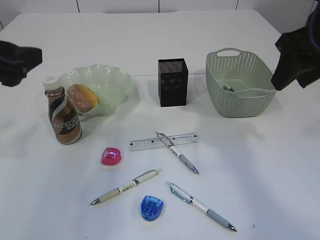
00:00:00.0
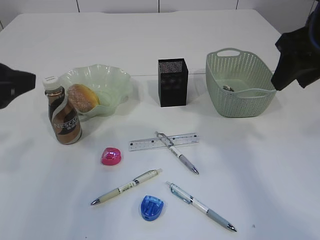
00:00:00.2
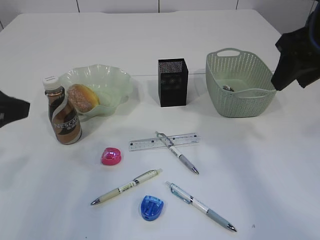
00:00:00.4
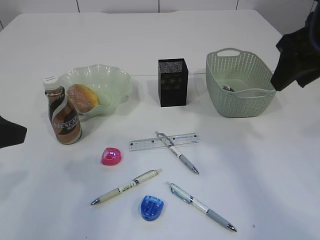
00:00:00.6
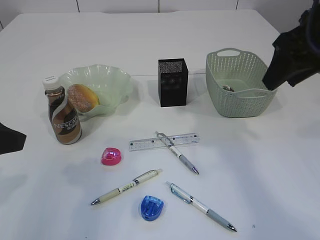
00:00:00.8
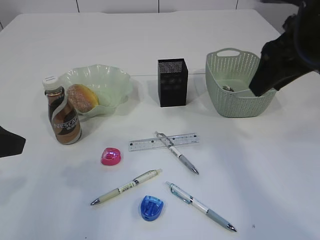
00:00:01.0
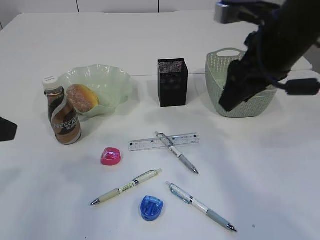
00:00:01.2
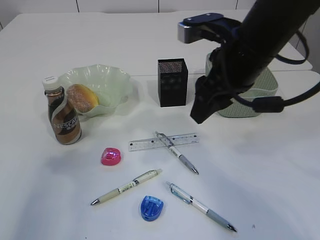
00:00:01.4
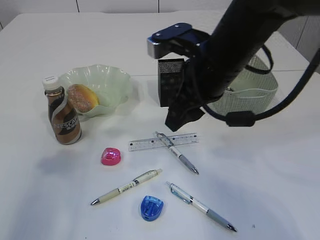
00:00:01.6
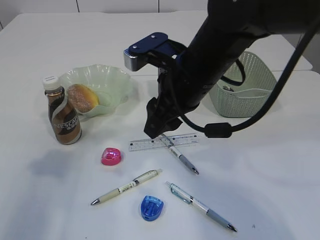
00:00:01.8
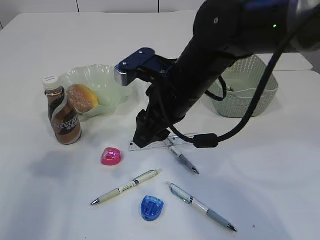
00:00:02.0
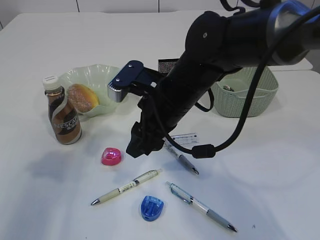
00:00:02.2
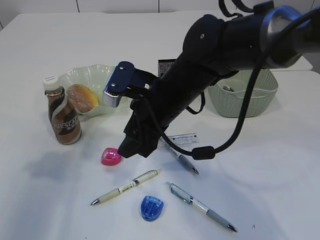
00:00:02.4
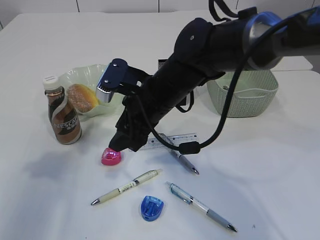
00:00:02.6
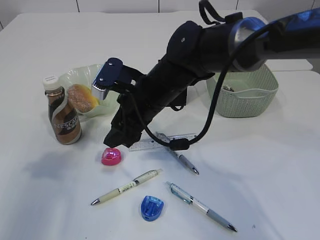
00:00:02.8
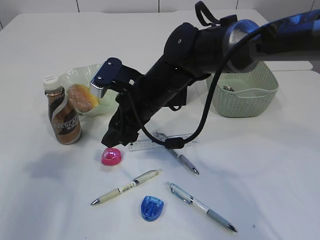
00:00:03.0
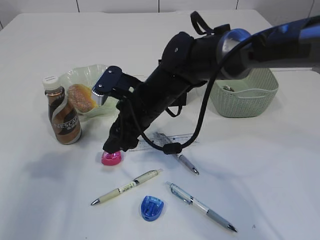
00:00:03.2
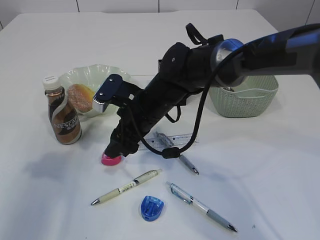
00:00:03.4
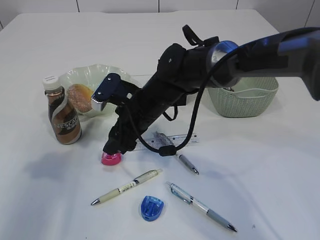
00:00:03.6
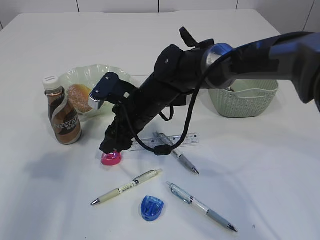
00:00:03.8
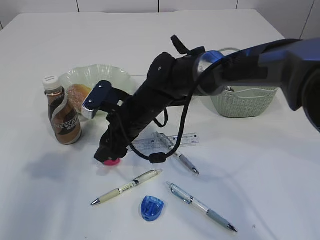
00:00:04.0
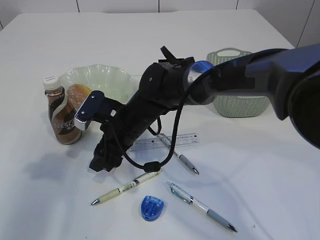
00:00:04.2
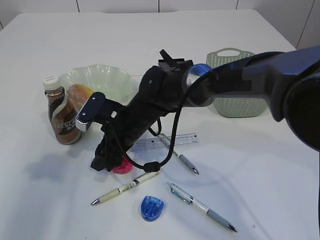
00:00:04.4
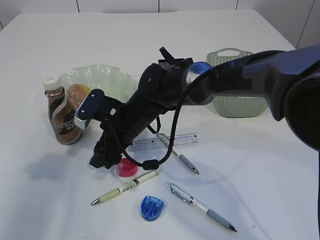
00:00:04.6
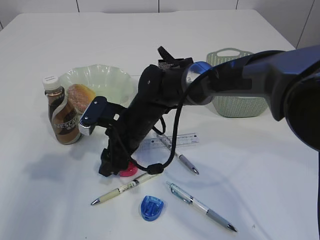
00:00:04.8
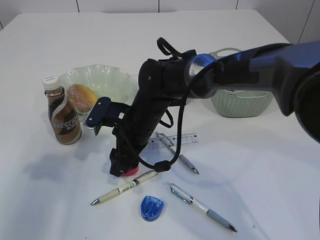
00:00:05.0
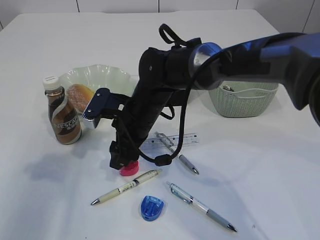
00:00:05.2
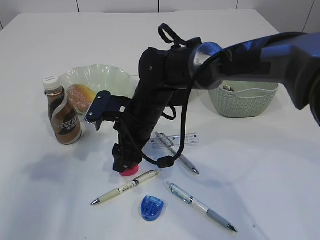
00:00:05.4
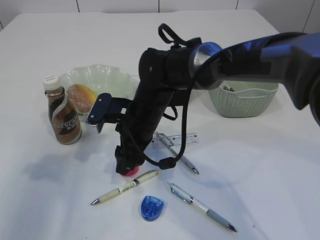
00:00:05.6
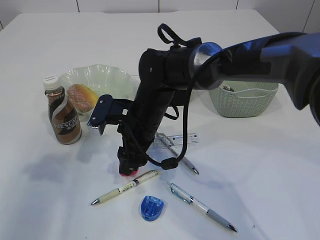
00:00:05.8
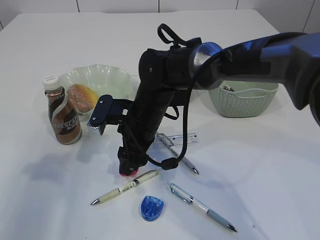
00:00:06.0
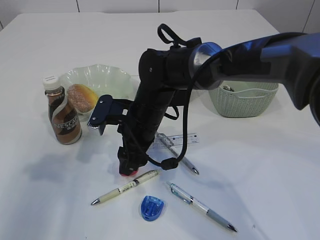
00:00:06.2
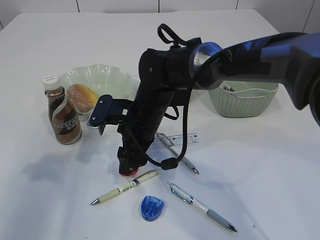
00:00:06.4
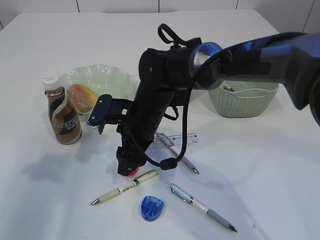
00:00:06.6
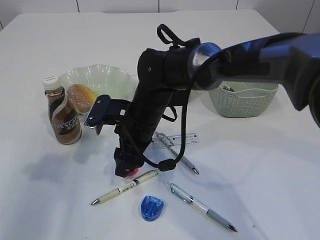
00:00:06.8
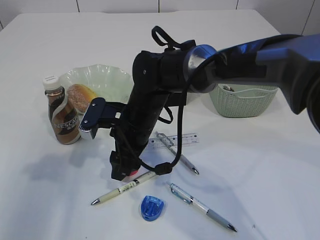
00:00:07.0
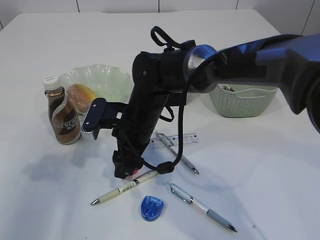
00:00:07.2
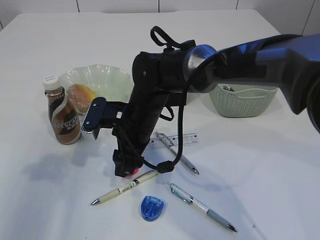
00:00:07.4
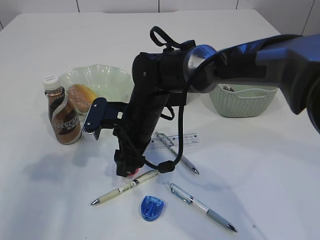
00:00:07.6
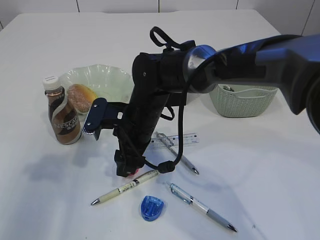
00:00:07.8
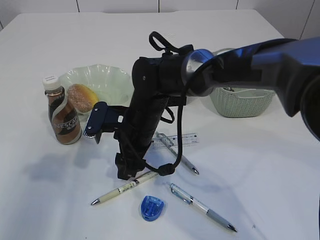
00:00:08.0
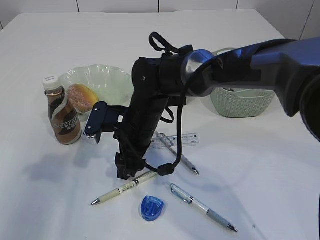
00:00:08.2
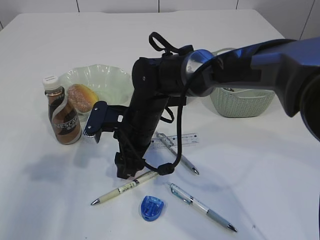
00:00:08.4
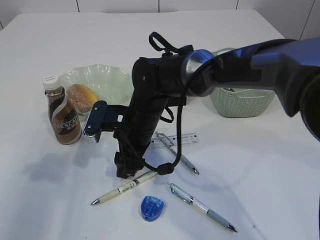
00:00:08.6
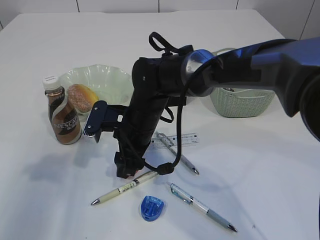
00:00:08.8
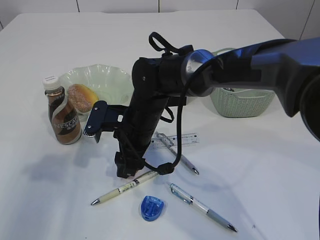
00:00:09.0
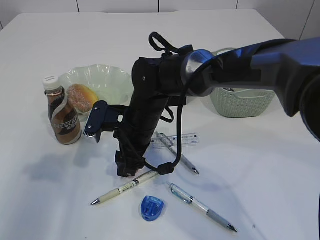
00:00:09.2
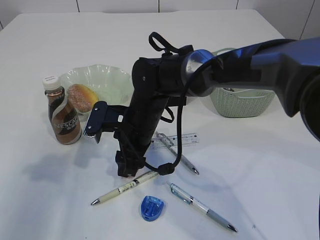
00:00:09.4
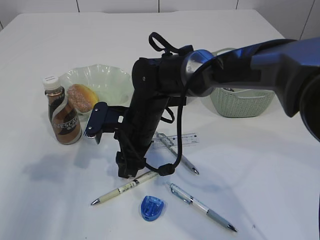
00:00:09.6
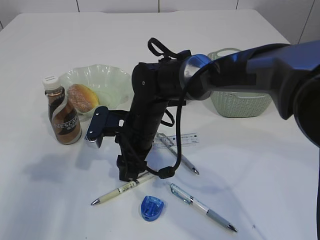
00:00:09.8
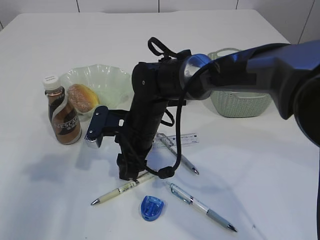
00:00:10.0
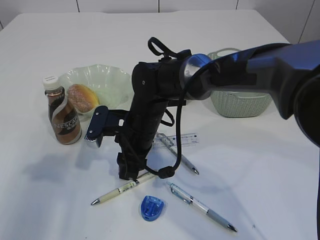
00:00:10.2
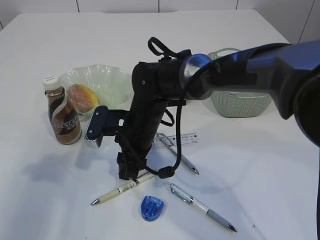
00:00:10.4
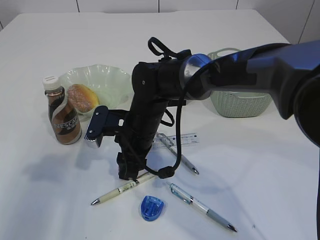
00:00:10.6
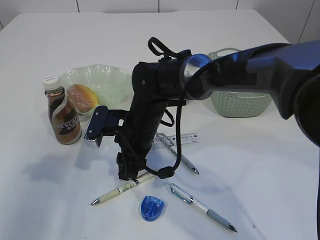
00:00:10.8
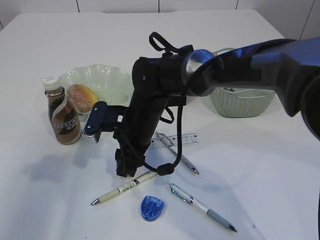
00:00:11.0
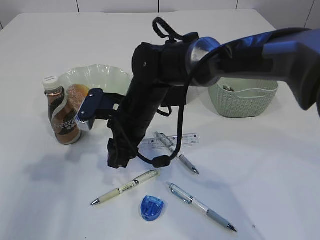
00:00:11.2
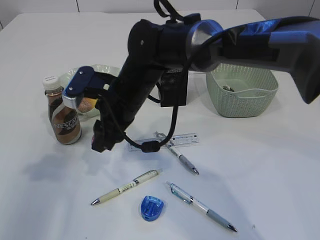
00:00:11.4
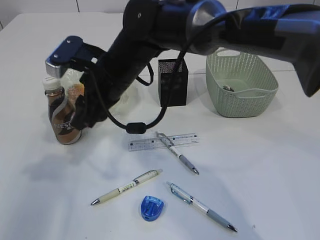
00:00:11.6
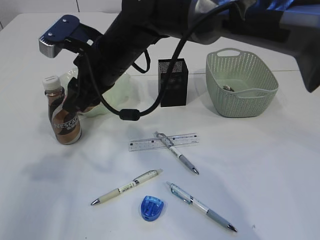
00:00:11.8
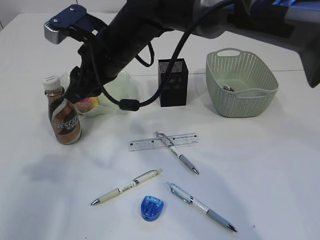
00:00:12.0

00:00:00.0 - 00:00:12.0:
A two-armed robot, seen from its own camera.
Step, 00:00:01.0 - 00:00:11.4: Pick up the red pencil sharpener.
00:00:00.0 - 00:00:01.6: The right gripper is displaced to the left and downward by some 15 cm, while the left gripper is displaced to the left by roughly 5 cm.
00:00:01.6 - 00:00:03.0: The right gripper heads to the left, downward and forward, covering some 15 cm.
00:00:03.0 - 00:00:04.4: The right gripper travels downward by about 5 cm.
00:00:04.4 - 00:00:06.0: The grippers make only small movements.
00:00:06.0 - 00:00:09.0: Neither gripper changes place.
00:00:09.0 - 00:00:10.4: Both grippers stay put.
00:00:10.4 - 00:00:12.0: The right gripper goes approximately 15 cm upward.

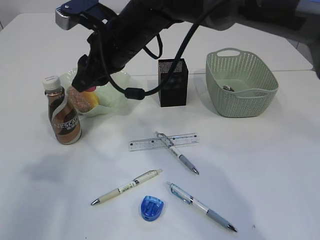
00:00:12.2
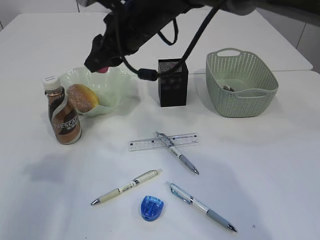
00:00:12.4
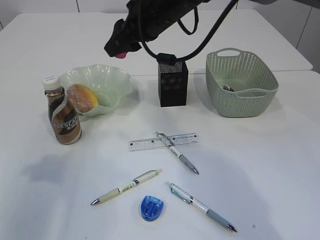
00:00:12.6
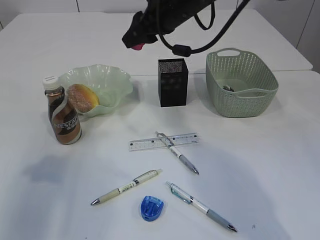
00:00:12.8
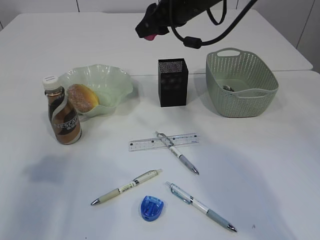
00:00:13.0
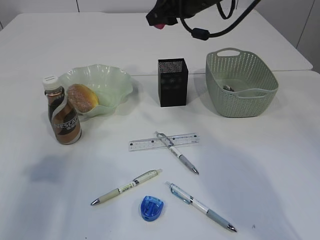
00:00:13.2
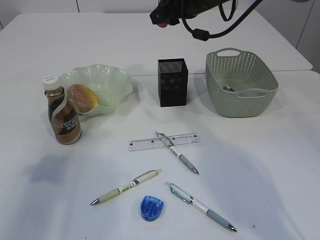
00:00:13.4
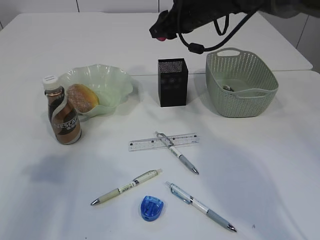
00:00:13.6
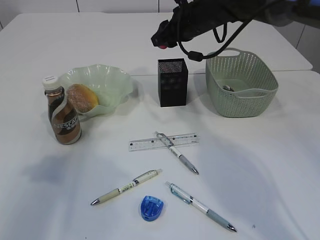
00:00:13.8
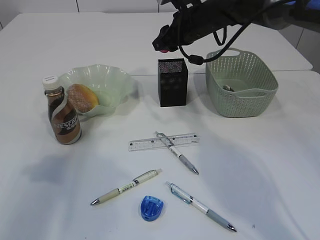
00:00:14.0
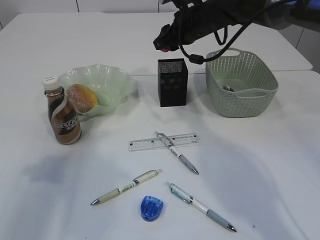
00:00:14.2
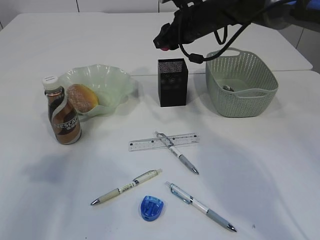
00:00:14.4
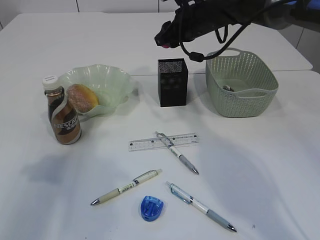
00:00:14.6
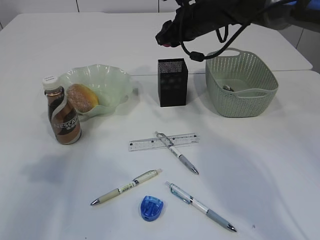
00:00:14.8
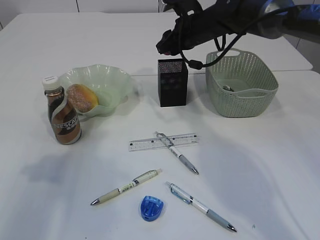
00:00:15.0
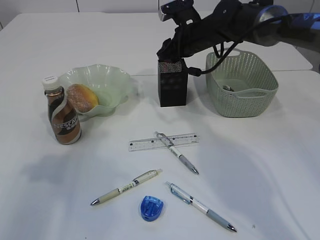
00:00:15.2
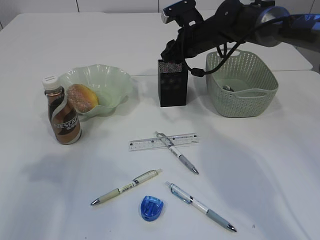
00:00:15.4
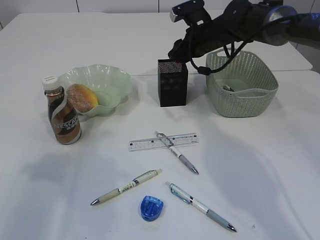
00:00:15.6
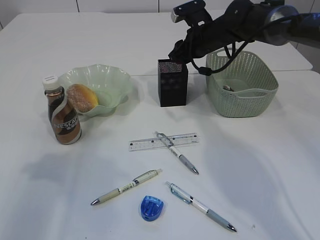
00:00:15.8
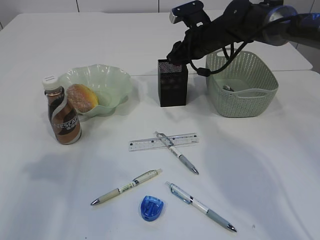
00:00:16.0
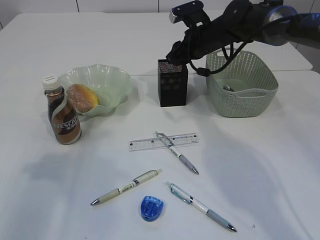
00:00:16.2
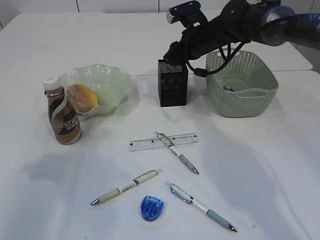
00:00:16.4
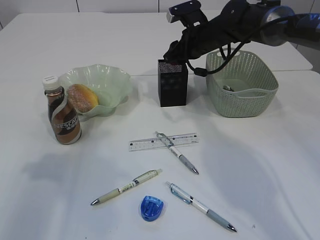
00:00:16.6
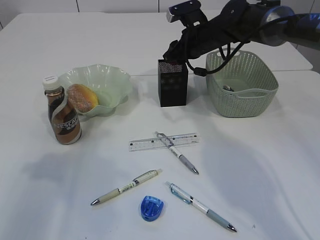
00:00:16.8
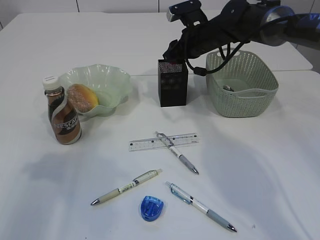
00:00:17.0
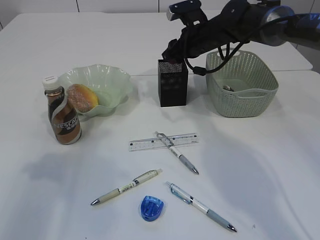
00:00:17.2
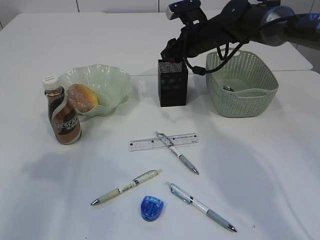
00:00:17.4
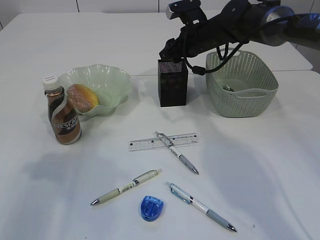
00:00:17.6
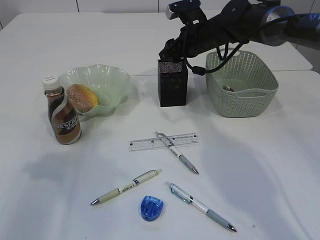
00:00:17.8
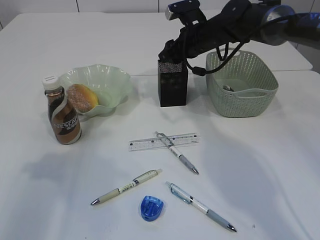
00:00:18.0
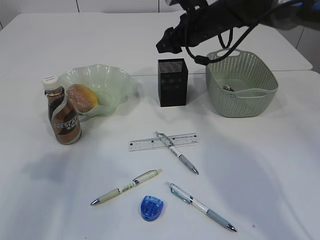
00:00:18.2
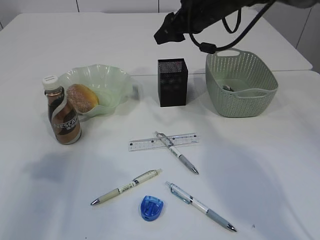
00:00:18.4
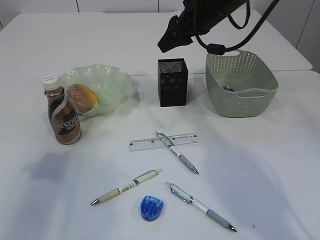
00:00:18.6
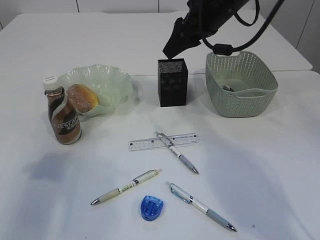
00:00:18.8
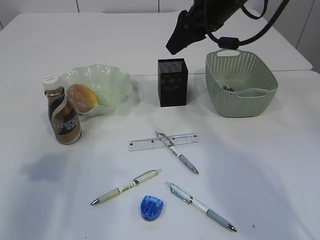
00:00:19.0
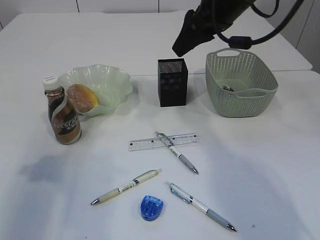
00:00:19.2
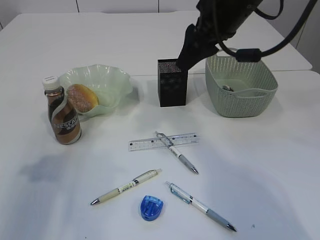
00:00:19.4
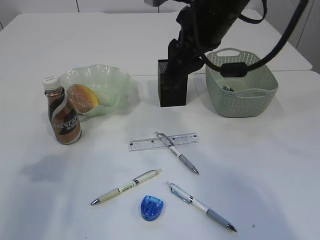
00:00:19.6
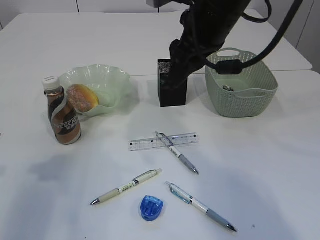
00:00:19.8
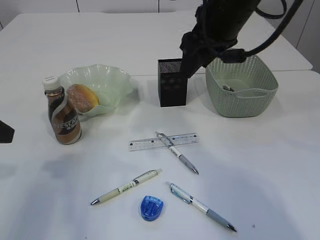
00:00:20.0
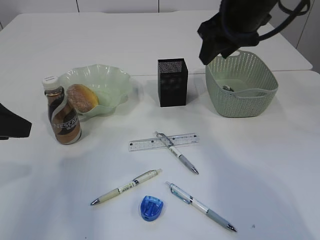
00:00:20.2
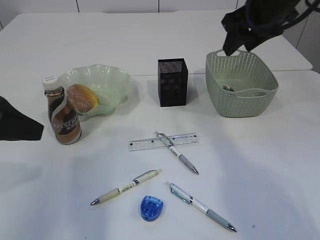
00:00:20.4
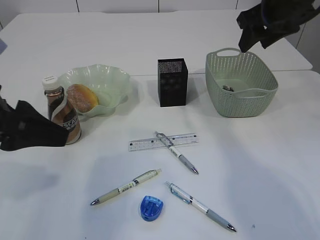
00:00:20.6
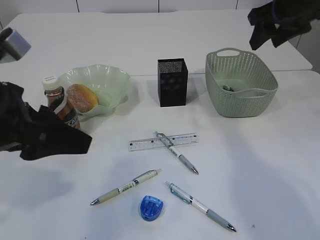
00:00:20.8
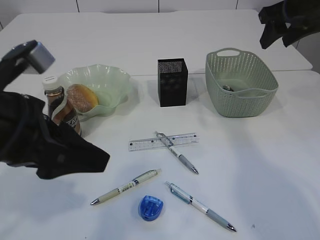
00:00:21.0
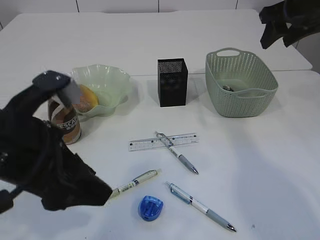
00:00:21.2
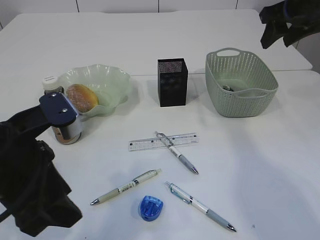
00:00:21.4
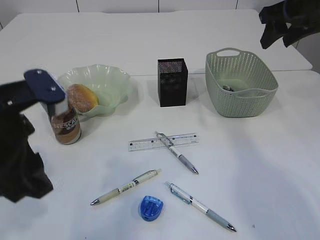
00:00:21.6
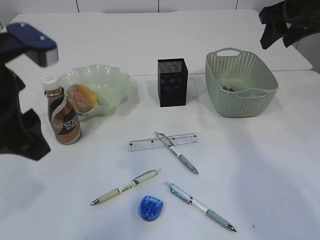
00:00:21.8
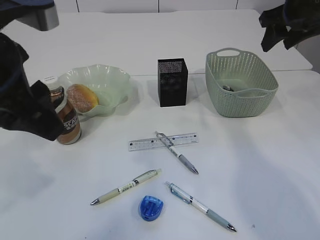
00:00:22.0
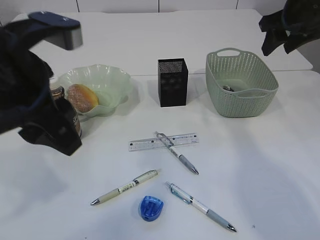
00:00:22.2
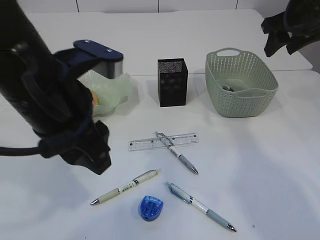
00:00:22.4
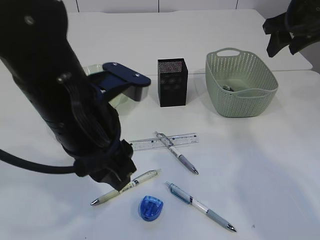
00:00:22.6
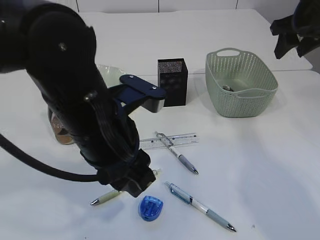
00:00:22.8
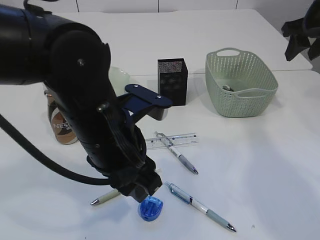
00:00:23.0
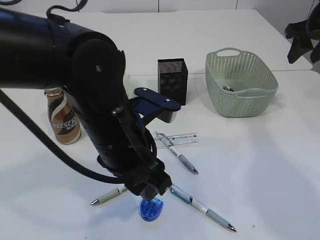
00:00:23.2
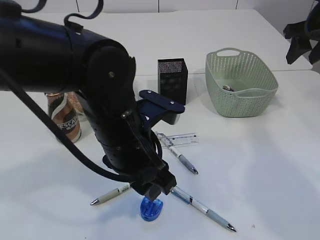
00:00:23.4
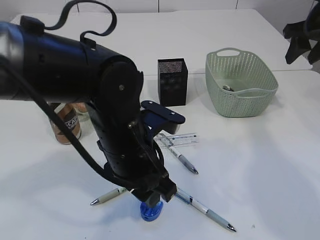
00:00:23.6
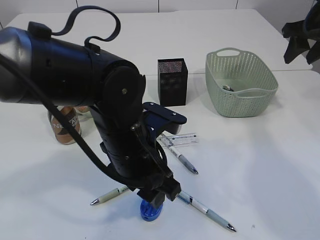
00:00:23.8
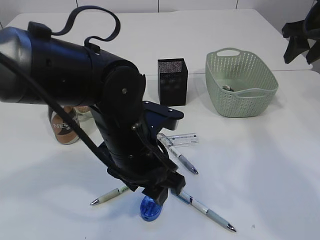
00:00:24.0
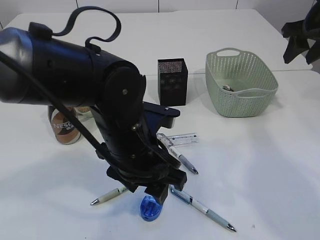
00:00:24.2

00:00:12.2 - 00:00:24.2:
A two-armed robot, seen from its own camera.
Step, 00:00:12.2 - 00:00:19.2: Place the red pencil sharpener into the pen holder.
00:00:12.2 - 00:00:13.8: The right gripper moves to the right and forward, approximately 15 cm.
00:00:13.8 - 00:00:15.2: There are only small adjustments of the grippers.
00:00:15.2 - 00:00:18.2: The grippers stay close to where they were, moving slightly.
00:00:18.2 - 00:00:19.8: The right gripper travels backward and upward by some 15 cm.
00:00:19.8 - 00:00:21.2: Both grippers travel together to the right, some 15 cm.
00:00:21.2 - 00:00:22.6: The left gripper heads to the right, covering about 5 cm, and travels upward and back again, roughly 10 cm each way.
00:00:22.6 - 00:00:24.2: The left gripper is displaced downward by about 10 cm.
